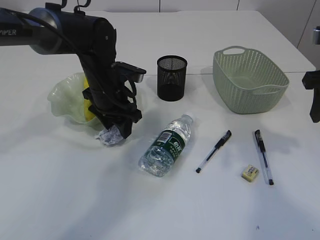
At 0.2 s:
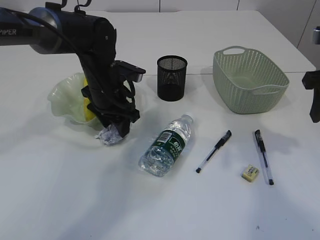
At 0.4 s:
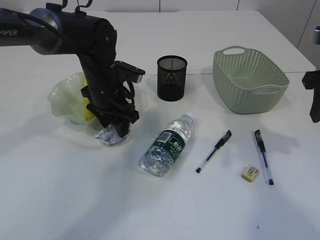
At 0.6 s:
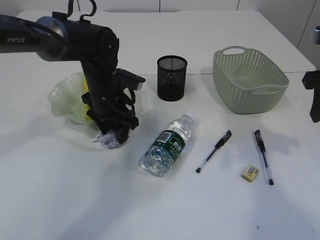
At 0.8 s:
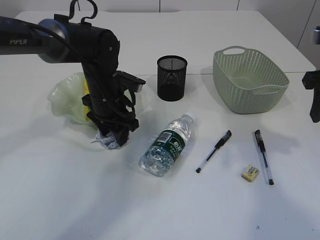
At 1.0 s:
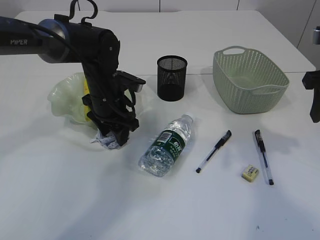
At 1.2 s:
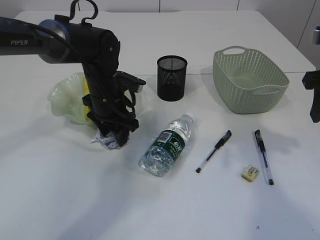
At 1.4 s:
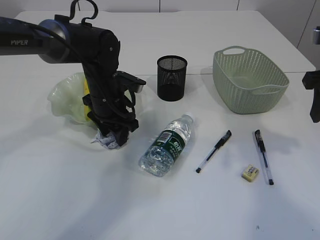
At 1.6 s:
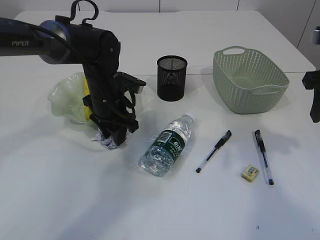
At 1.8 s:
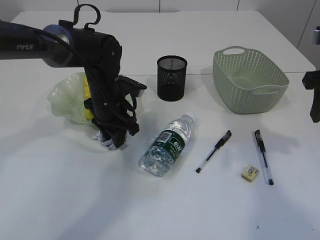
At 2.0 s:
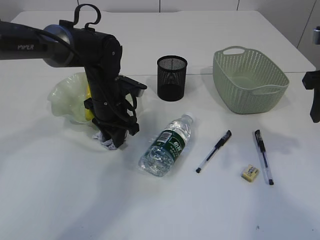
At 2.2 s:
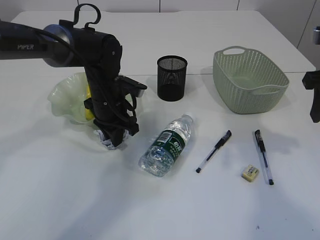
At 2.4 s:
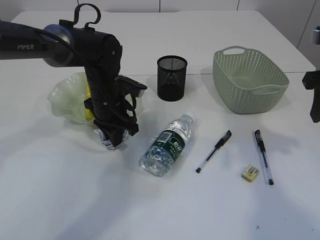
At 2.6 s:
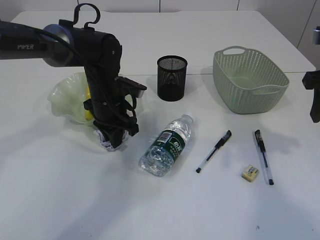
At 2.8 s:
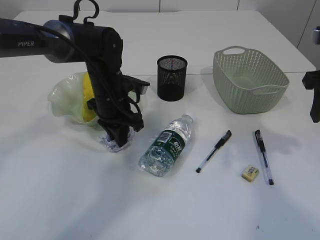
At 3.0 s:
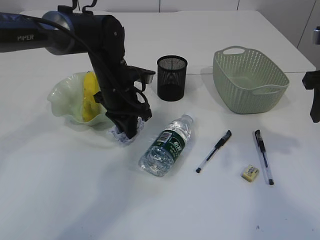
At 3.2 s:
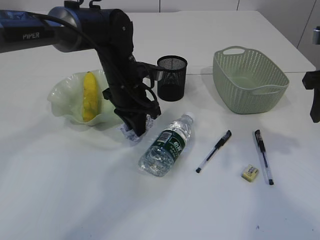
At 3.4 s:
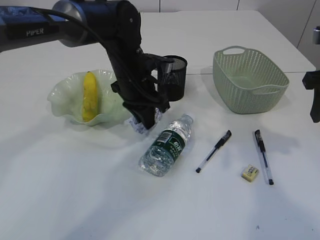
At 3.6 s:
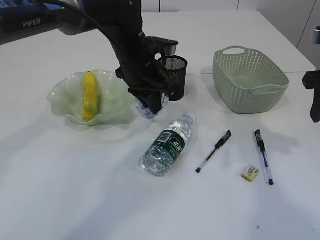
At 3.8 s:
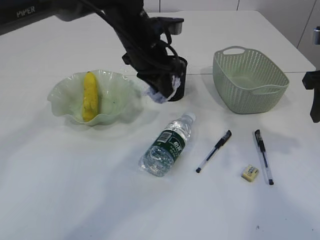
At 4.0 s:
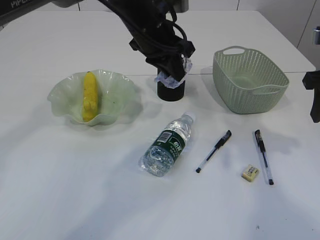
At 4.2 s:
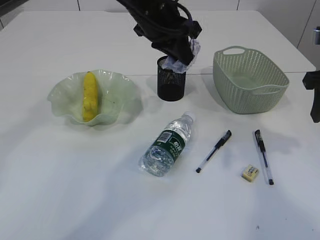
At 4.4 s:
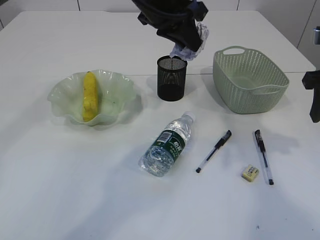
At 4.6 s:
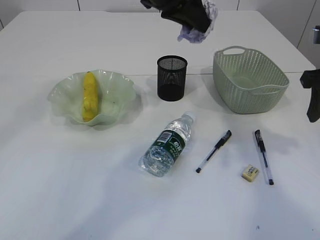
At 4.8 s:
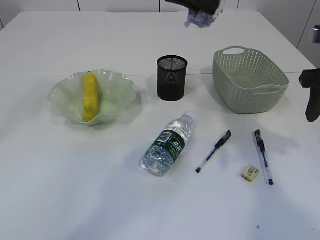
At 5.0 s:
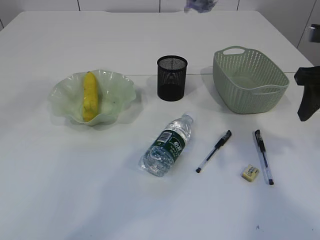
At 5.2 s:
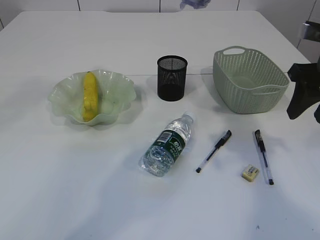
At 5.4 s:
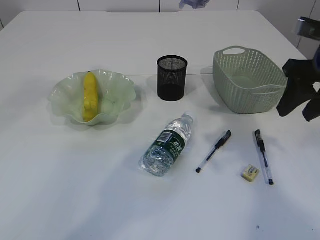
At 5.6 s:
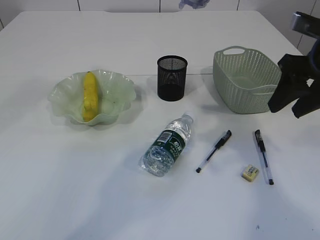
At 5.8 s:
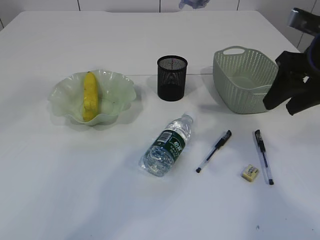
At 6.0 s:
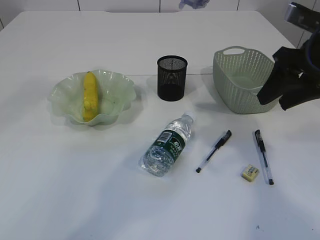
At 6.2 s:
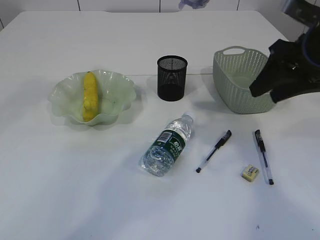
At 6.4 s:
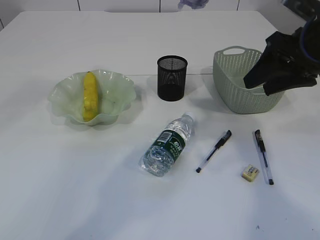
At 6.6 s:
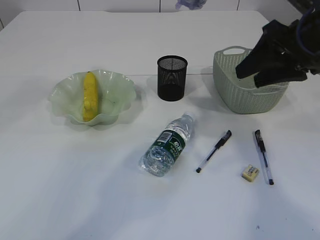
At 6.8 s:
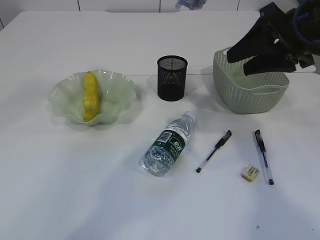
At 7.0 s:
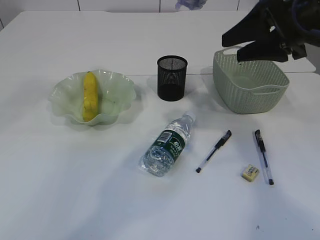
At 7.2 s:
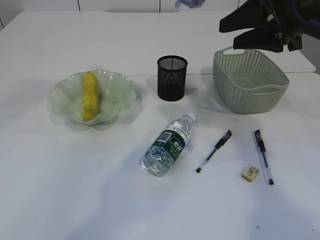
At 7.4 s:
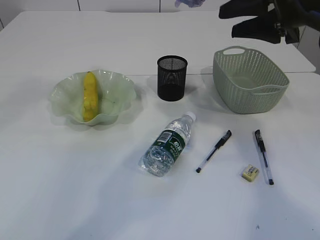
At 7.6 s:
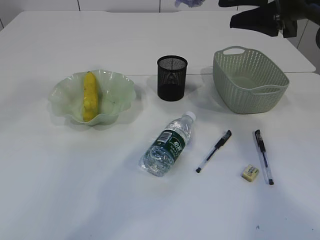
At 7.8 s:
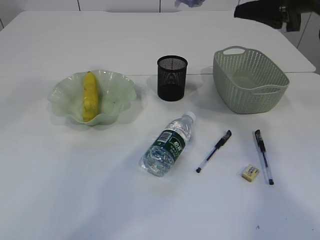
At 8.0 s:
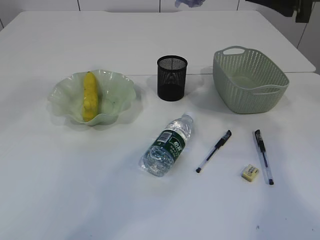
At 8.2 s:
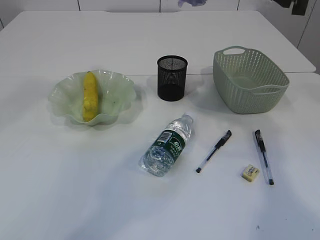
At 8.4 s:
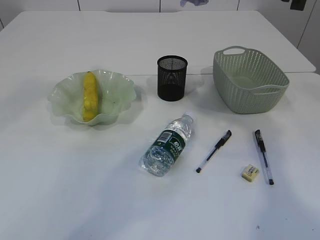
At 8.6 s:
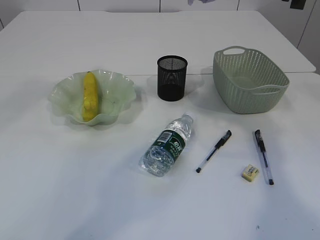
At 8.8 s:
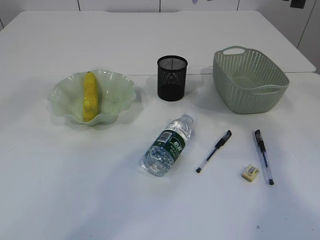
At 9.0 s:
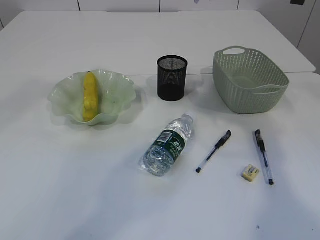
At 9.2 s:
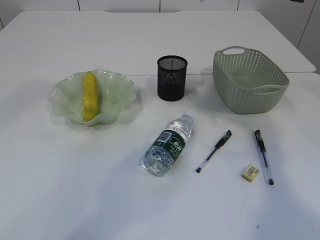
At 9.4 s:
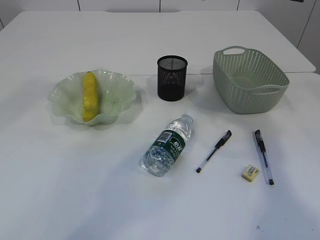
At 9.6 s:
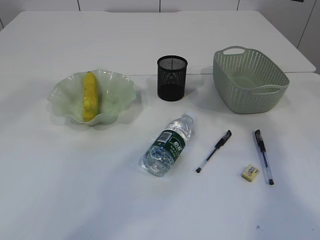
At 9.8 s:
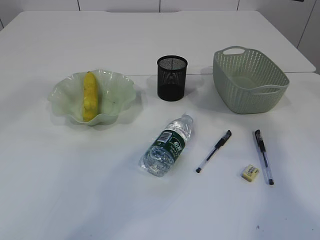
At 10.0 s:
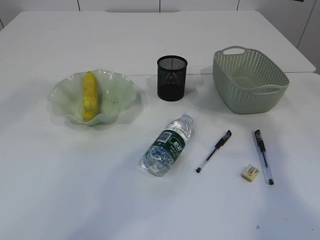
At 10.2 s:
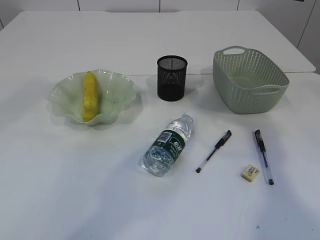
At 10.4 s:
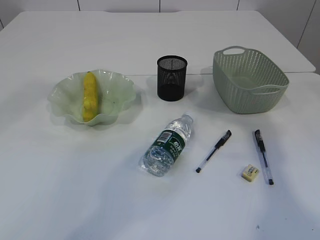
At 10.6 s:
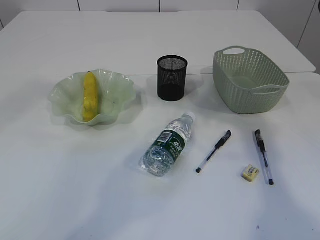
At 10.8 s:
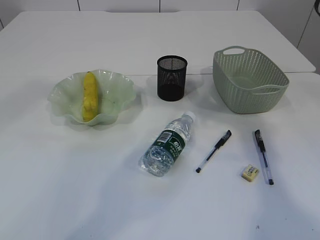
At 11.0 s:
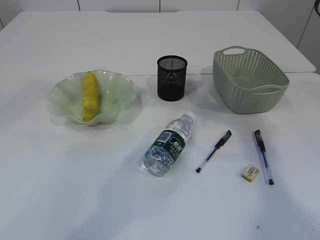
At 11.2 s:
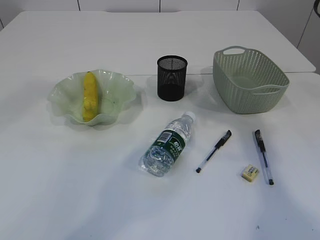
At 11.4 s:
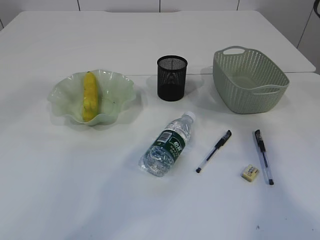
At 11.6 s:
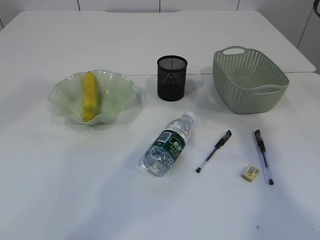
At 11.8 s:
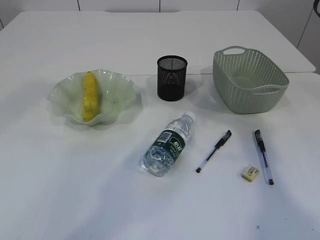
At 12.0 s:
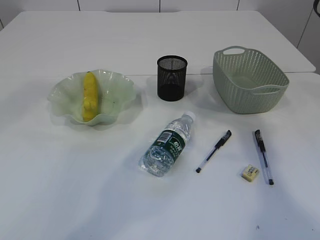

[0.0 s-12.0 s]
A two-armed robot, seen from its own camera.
Step, 0.0 to 3.6 s: Pick up the waste paper.
0.0 to 1.6 s: The grippers make only small movements.
1.6 to 3.0 s: The left gripper closes its fingers.
3.0 to 4.4 s: The left gripper heads upward and to the right, covering about 20 cm.
4.4 to 6.0 s: The left gripper shifts about 10 cm upward.
6.0 to 7.6 s: The right gripper heads upward, covering some 5 cm.

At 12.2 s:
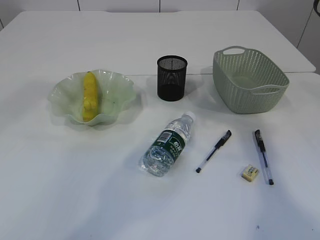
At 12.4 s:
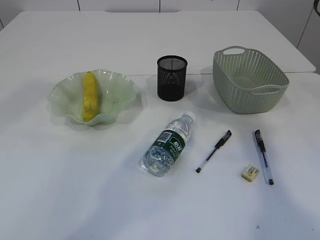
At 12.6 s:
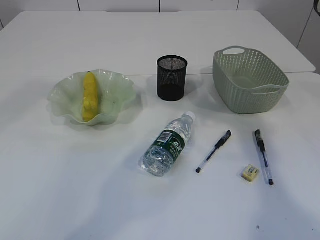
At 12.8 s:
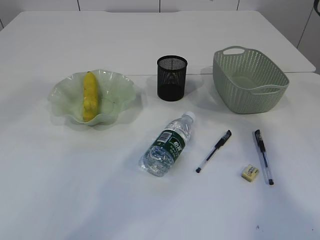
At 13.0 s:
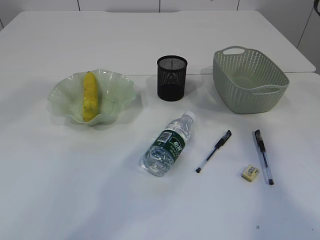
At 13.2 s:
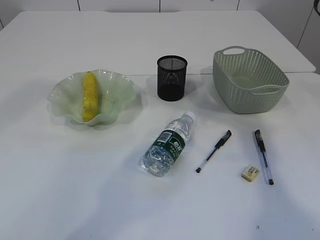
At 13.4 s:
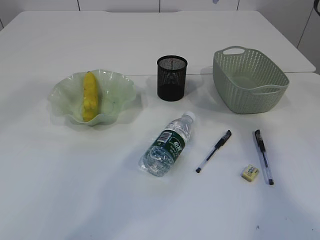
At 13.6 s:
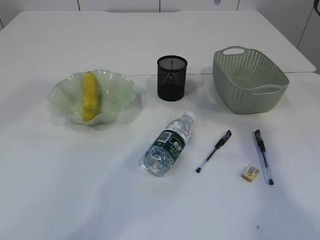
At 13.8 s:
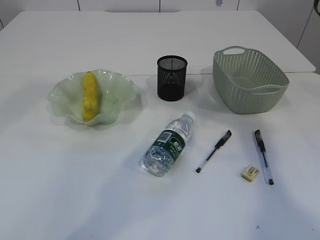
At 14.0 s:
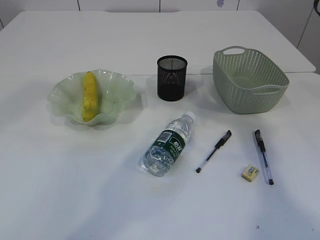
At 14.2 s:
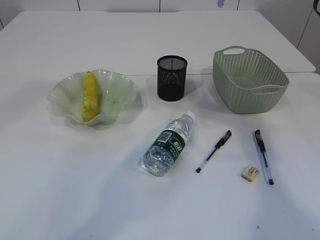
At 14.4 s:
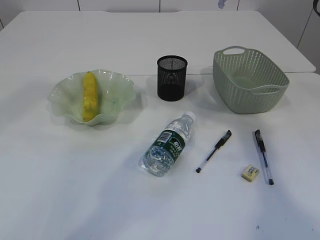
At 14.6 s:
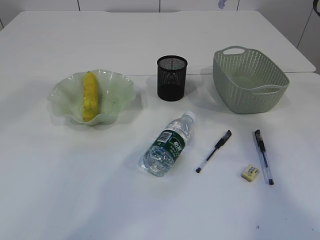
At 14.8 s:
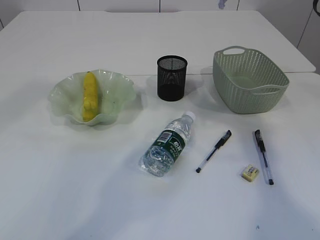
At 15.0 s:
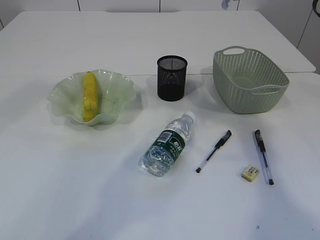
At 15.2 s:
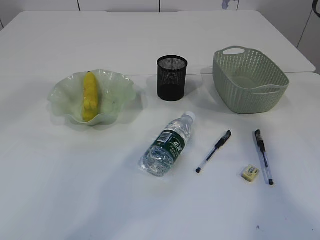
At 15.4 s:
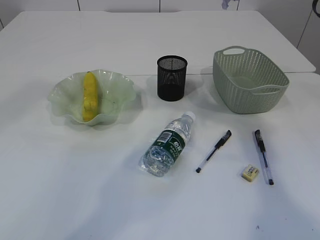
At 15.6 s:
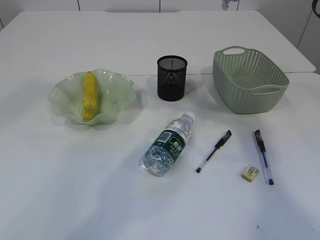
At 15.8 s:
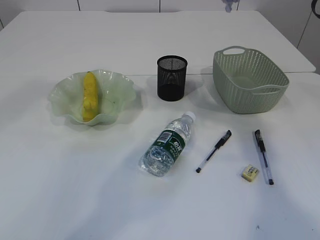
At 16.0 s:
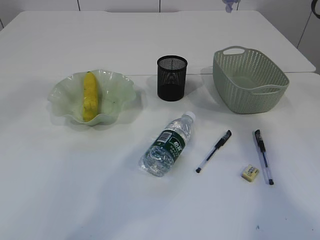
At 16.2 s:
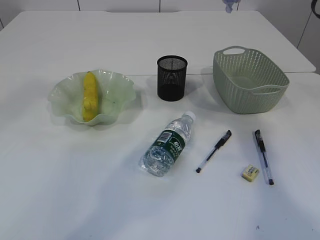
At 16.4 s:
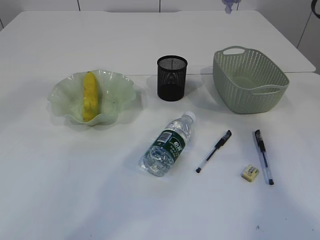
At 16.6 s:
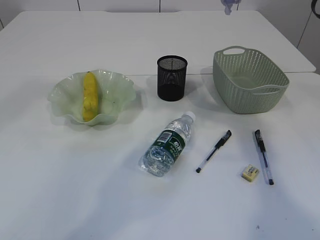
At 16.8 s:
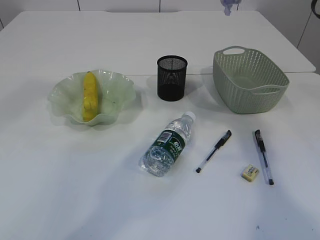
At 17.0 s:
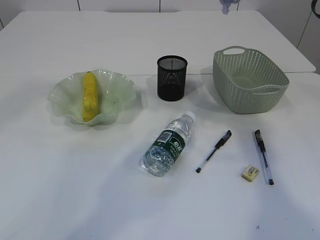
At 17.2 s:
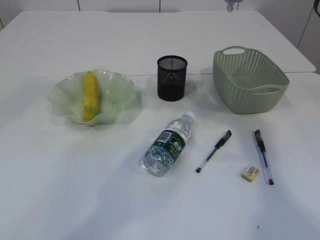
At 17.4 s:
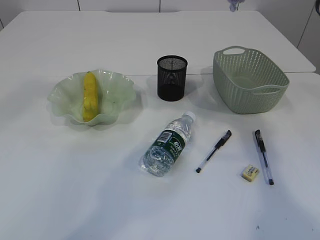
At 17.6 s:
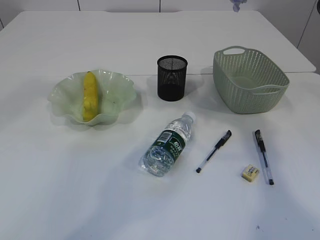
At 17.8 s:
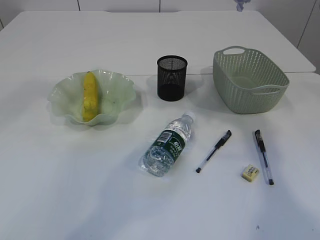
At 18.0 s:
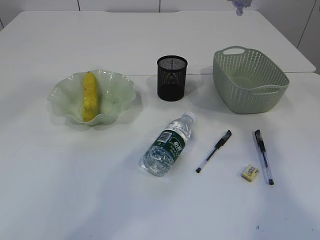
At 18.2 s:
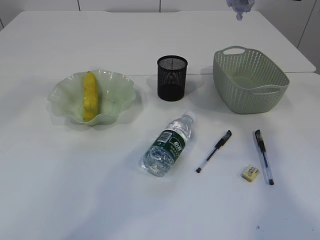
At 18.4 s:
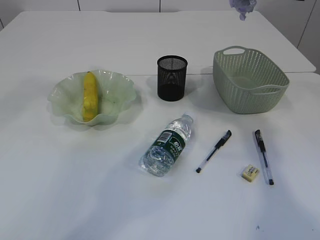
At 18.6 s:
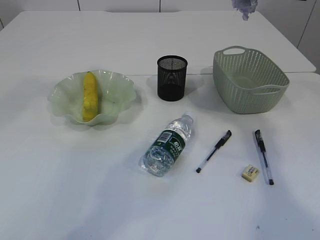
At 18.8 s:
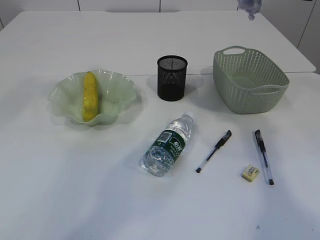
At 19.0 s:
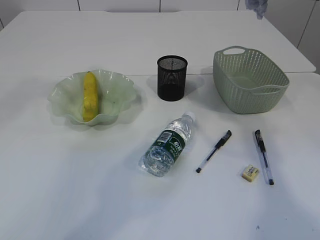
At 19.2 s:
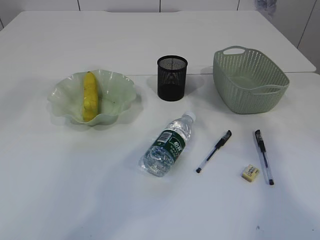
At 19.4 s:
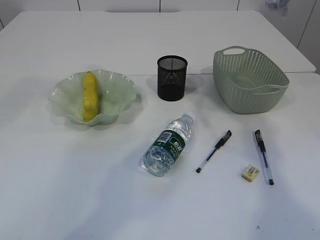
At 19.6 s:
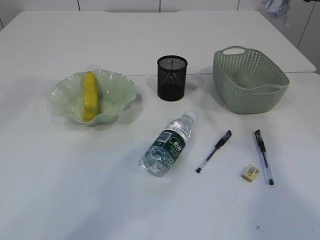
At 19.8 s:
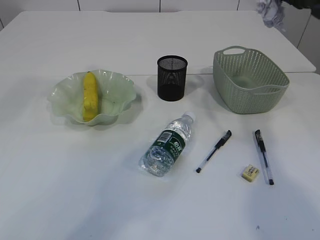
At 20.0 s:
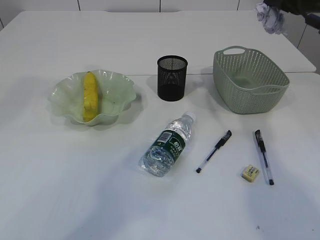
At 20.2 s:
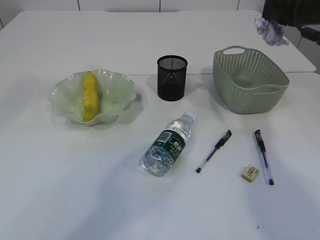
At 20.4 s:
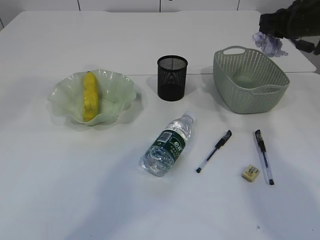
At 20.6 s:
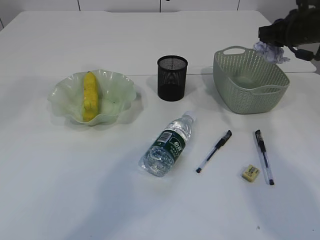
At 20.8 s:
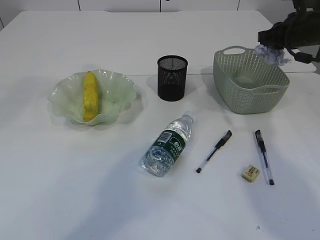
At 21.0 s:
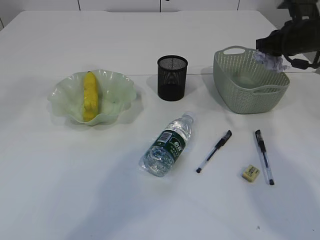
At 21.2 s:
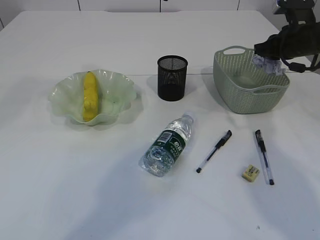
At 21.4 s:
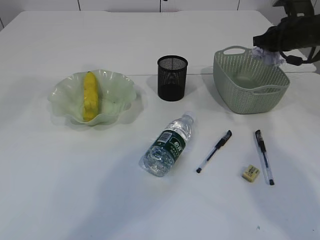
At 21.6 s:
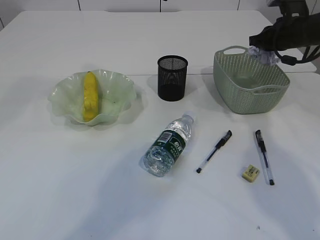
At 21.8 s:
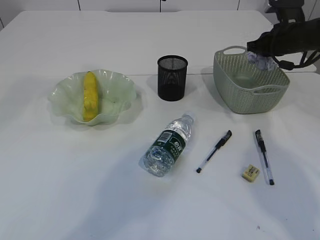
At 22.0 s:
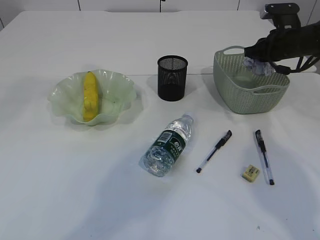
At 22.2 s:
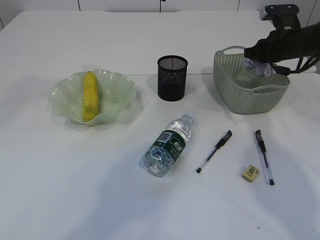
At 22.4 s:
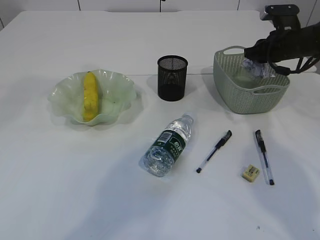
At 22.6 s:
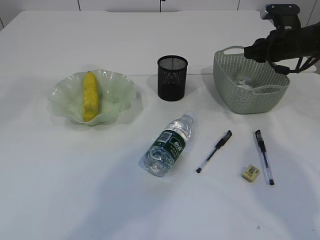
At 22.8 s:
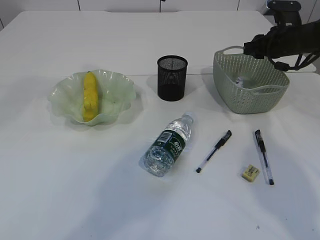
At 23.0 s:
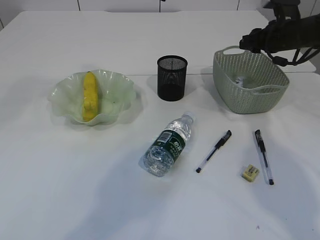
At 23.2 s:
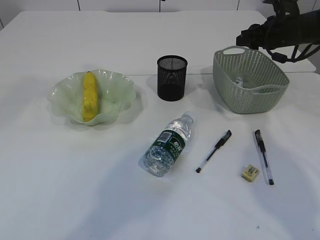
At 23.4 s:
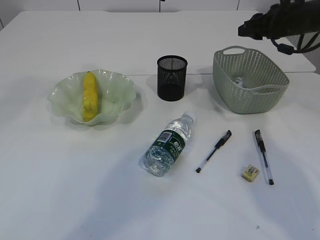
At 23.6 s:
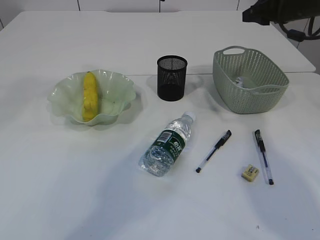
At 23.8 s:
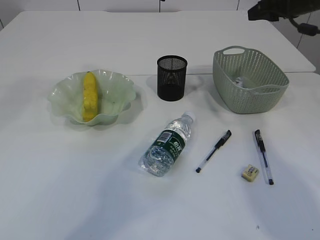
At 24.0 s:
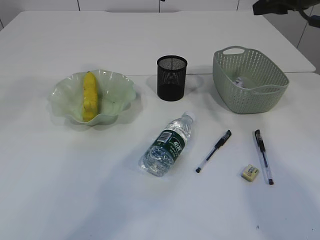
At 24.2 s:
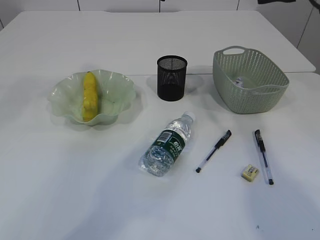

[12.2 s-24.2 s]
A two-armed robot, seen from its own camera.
Step, 14.0 to 23.6 s: Place the waste paper in the basket.
12.2 to 13.8 s: Both grippers stay put.
15.2 to 16.6 s: Both grippers stay about where they are.
18.2 to 19.8 s: The right gripper travels forward by about 5 cm.
19.8 to 21.2 s: The right gripper is displaced downward by approximately 10 cm.
21.2 to 22.6 s: The right gripper opens up.
22.6 to 24.2 s: The right gripper moves upward and backward, about 15 cm.
